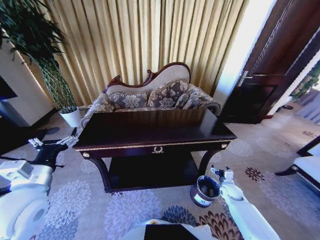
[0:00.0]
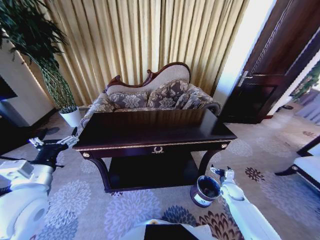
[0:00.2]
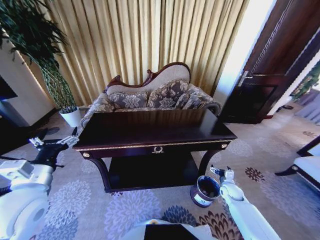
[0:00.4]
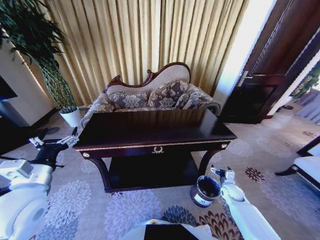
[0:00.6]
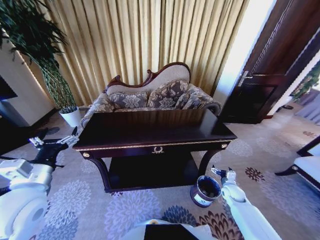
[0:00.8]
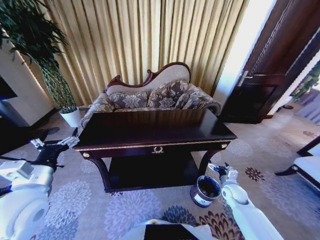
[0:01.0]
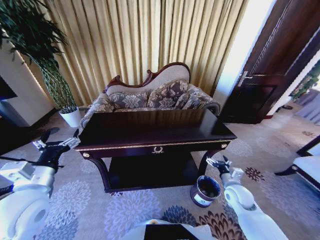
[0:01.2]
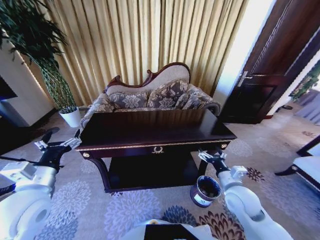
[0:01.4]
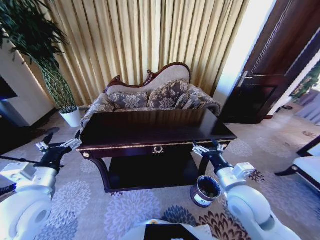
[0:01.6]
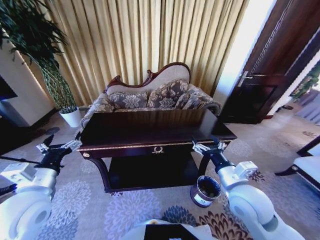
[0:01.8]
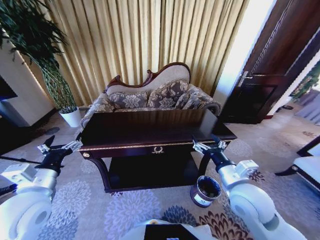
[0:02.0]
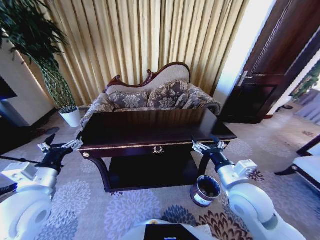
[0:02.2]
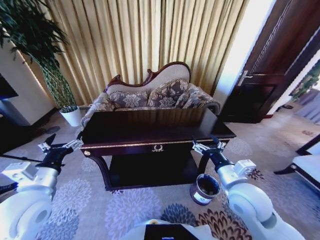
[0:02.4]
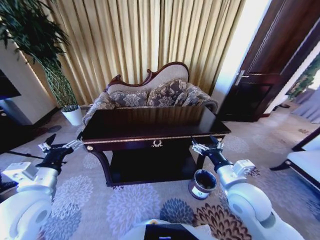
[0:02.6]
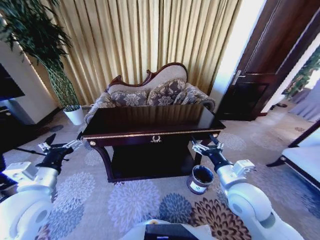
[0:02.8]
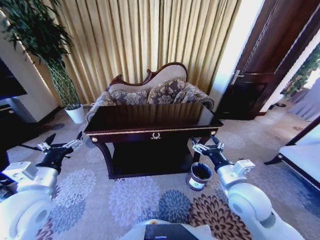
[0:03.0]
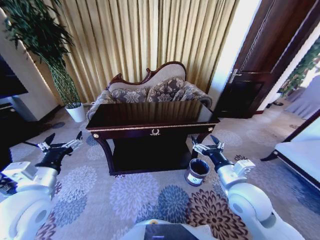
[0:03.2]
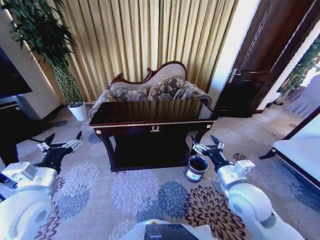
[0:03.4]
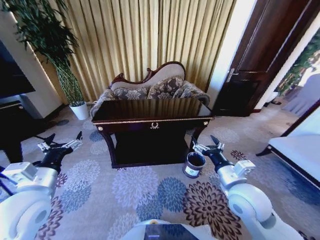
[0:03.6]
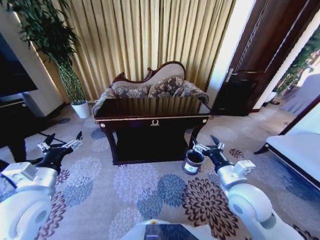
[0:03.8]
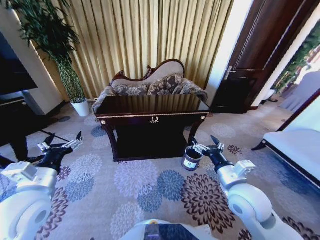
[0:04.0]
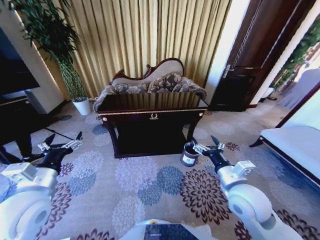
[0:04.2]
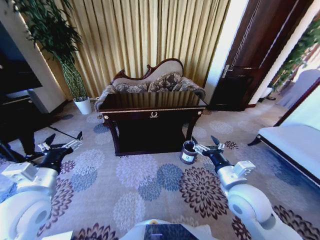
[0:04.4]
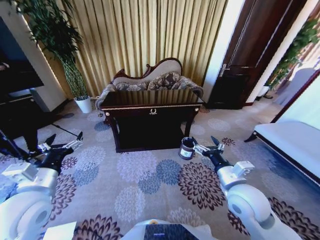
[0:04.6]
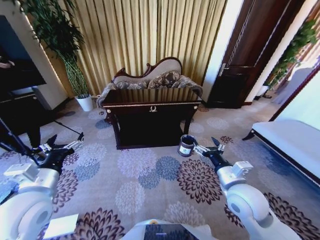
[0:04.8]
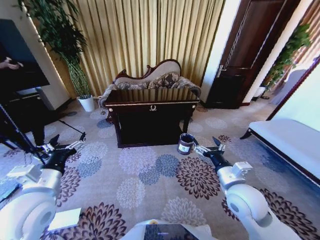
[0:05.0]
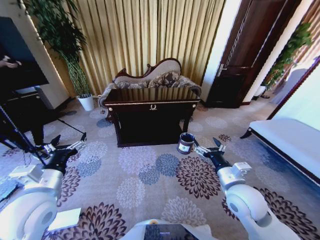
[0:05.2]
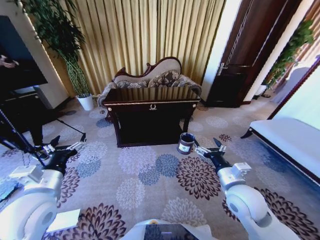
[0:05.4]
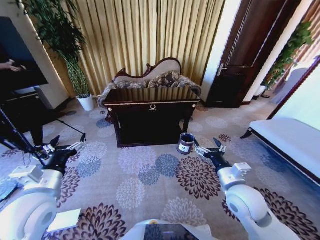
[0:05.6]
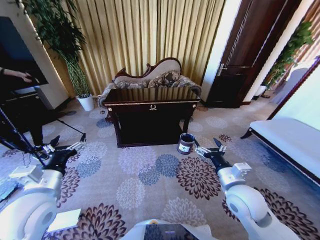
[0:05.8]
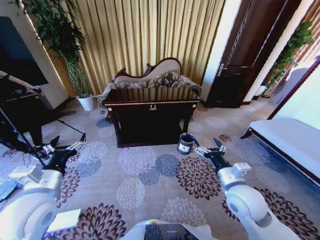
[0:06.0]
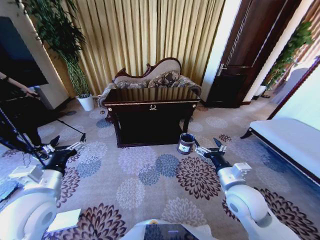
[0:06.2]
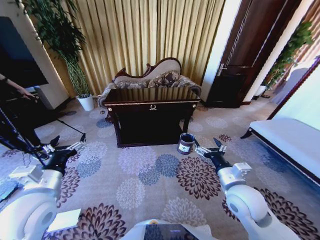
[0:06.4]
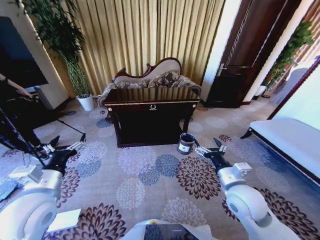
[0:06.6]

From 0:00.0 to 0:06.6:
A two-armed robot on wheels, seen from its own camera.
Task of the whole recording: Move to the front of the table and place the trash on the table into the trash bin.
From 0:00.0 to 0:01.6: The right gripper moves upward and to the left, some 30 cm.
From 0:05.0 to 0:06.6: Neither gripper changes place.

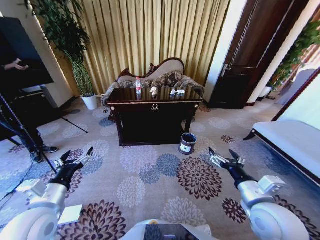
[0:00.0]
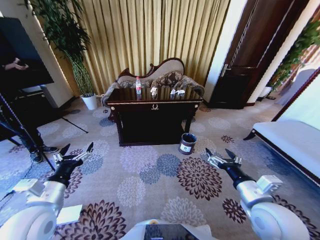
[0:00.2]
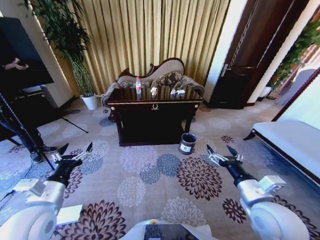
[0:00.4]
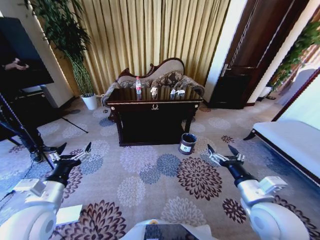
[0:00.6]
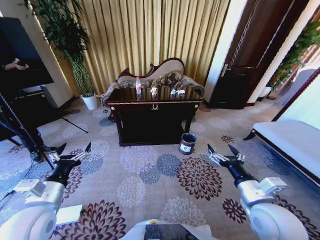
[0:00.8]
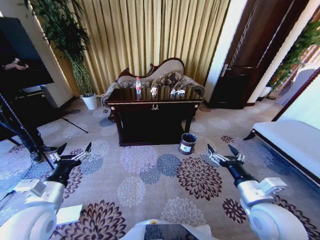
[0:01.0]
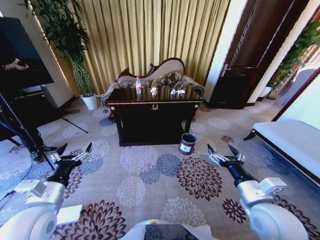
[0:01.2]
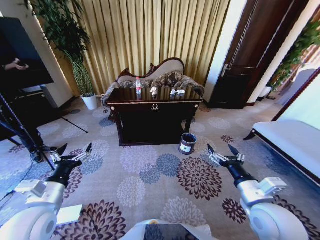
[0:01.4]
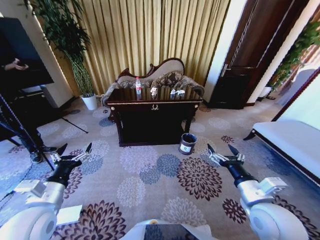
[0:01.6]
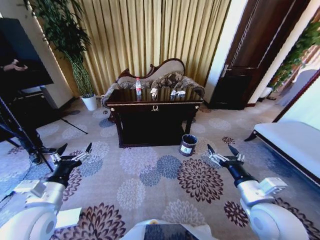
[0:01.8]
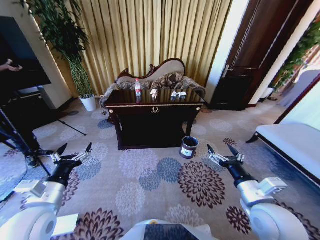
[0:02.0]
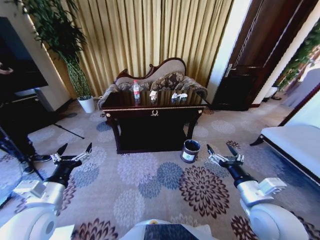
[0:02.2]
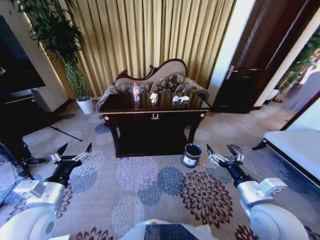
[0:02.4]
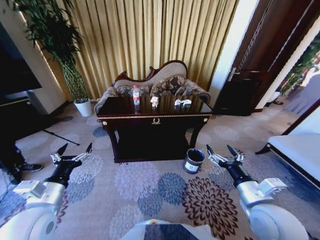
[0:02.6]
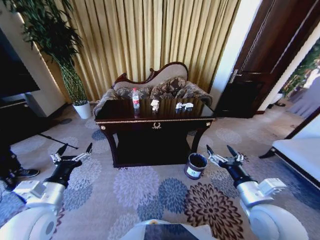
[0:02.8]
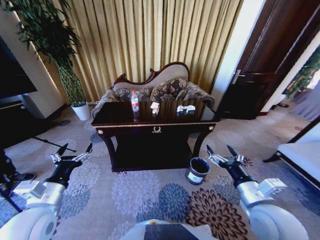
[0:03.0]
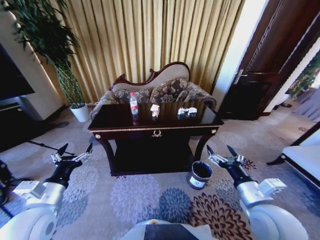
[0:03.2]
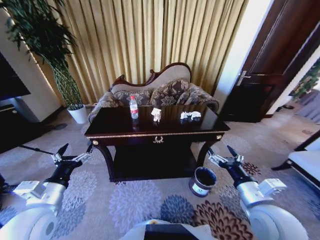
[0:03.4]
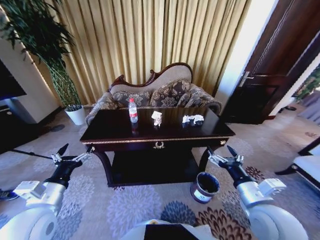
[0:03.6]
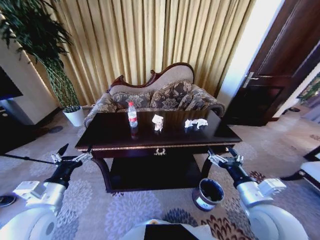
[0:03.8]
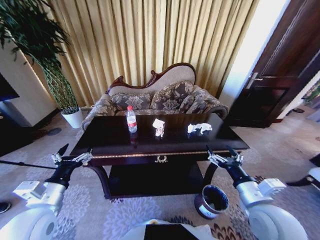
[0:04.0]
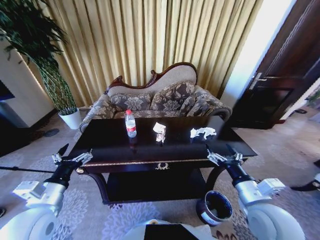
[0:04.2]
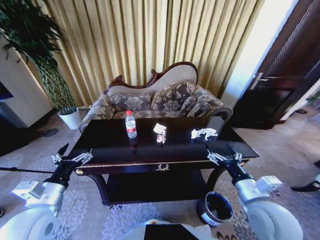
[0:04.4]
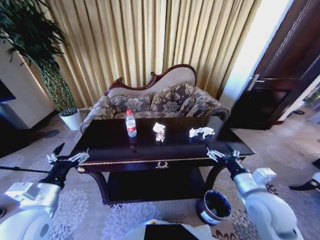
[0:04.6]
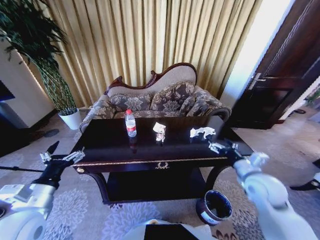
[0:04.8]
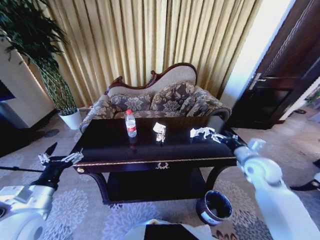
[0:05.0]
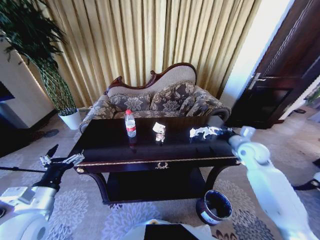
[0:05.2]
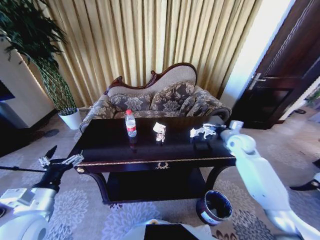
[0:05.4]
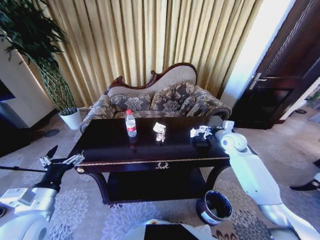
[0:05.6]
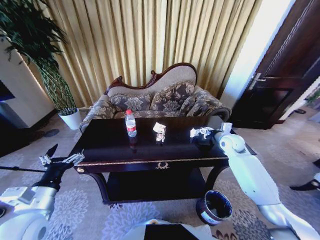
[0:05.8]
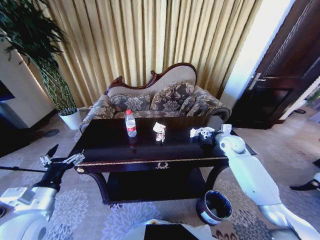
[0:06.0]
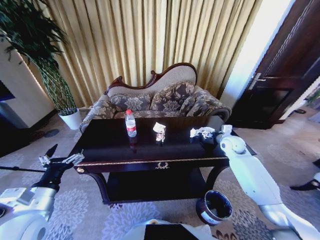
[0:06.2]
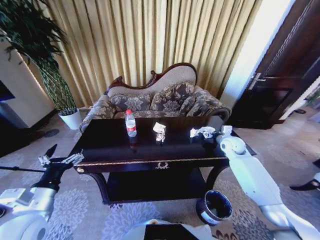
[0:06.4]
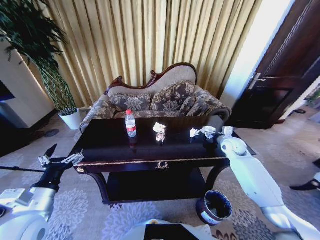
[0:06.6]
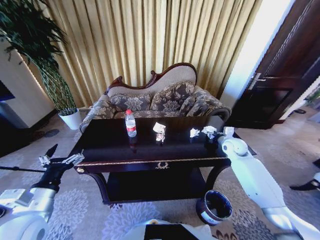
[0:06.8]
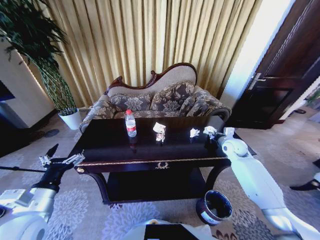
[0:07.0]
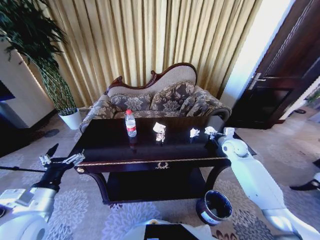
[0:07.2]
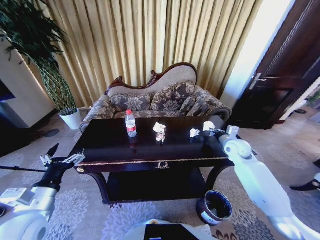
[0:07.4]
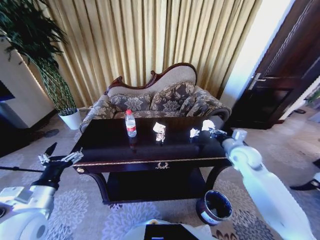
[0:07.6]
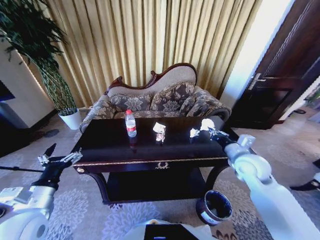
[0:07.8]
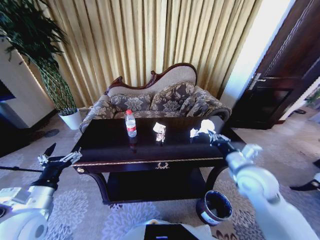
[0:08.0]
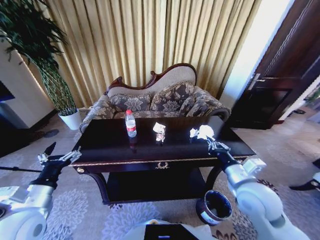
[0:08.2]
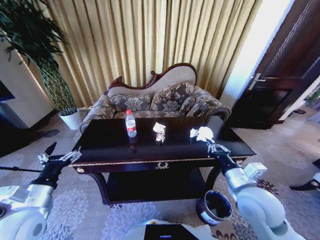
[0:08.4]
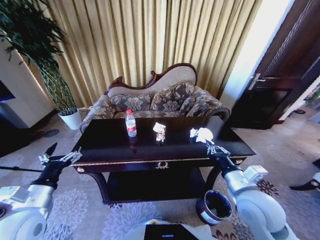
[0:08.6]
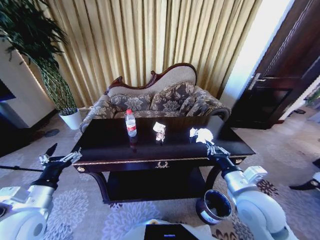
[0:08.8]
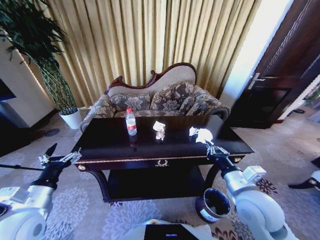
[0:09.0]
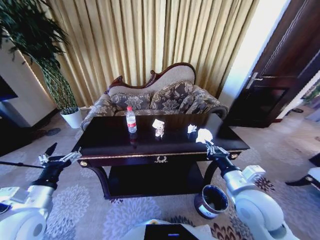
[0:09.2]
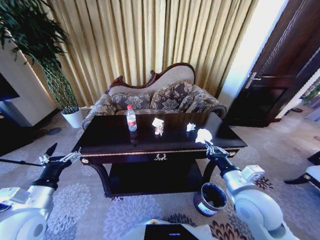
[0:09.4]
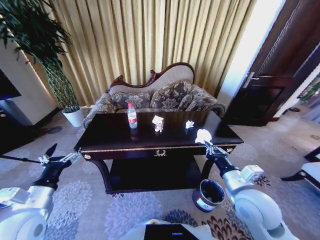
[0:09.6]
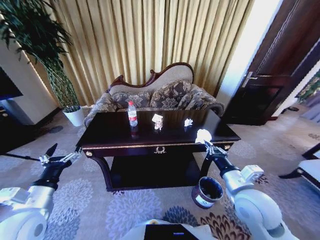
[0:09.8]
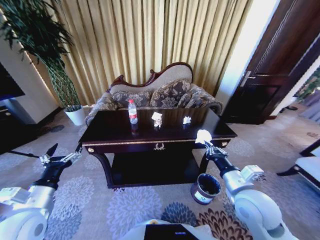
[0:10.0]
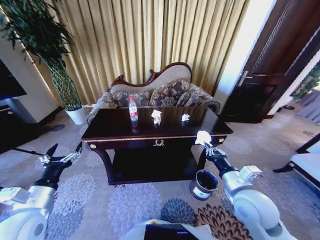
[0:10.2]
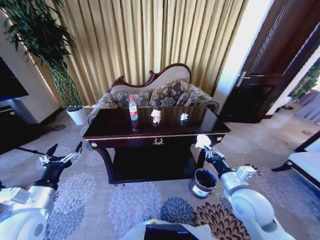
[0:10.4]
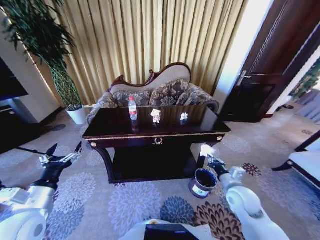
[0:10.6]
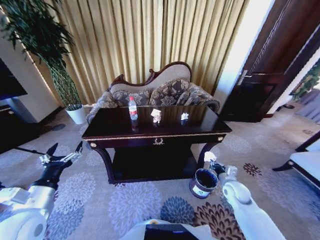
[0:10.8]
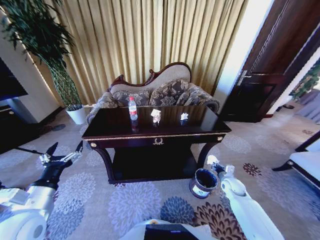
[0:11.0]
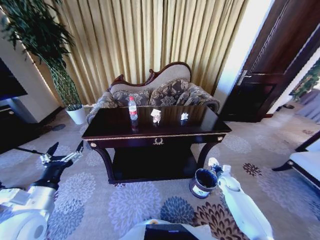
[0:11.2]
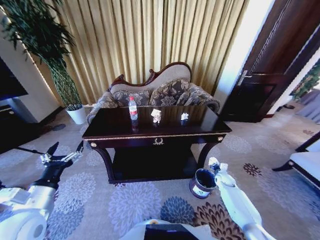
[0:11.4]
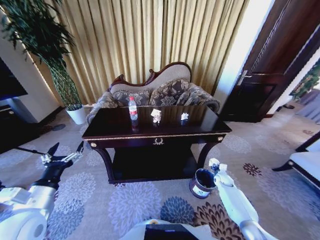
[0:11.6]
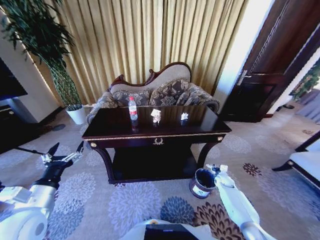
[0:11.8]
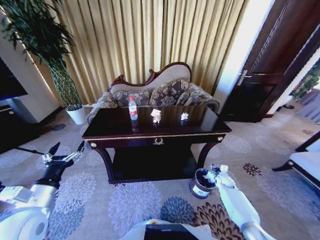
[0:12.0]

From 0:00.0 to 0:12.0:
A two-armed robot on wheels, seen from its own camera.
Task of the whole recording: Move to the front of the table and place the trash on the table into the trash bin.
From 0:04.4 to 0:06.0: The right gripper moves forward, approximately 30 cm.
From 0:06.0 to 0:07.6: The right gripper moves backward, about 10 cm, and closes up.
From 0:07.6 to 0:09.0: The right gripper heads backward and to the left, covering approximately 20 cm.
From 0:10.4 to 0:12.0: The right gripper is displaced downward, forward and to the right by roughly 35 cm, and opens.

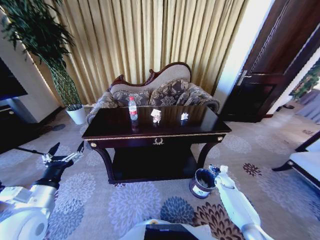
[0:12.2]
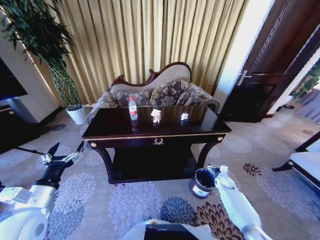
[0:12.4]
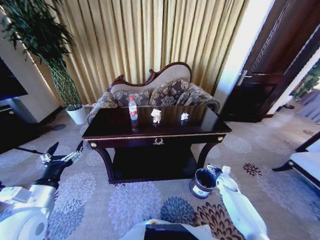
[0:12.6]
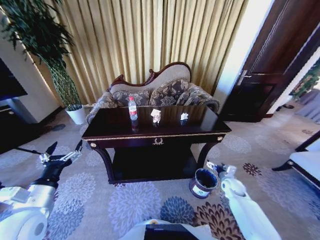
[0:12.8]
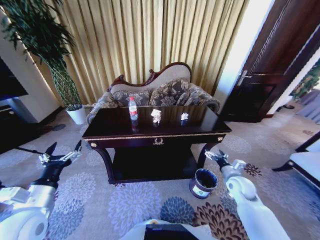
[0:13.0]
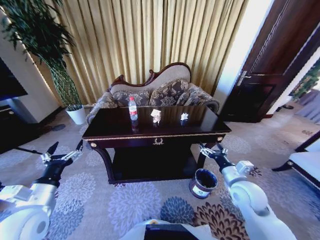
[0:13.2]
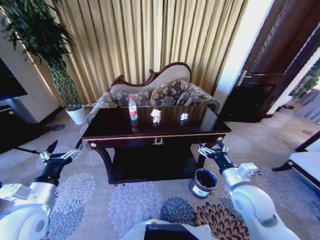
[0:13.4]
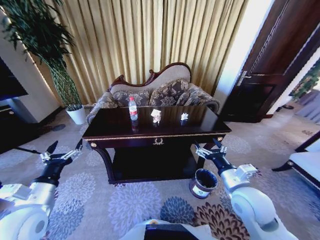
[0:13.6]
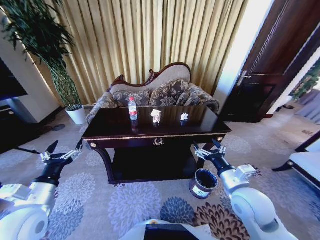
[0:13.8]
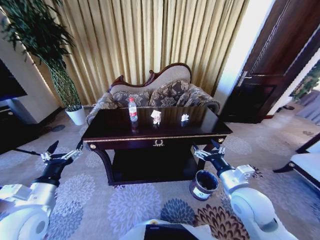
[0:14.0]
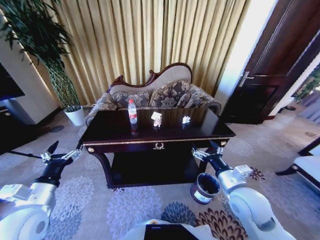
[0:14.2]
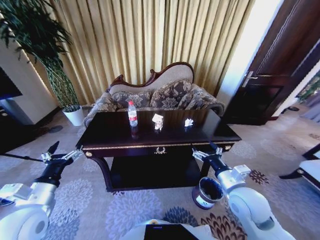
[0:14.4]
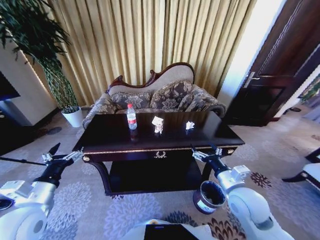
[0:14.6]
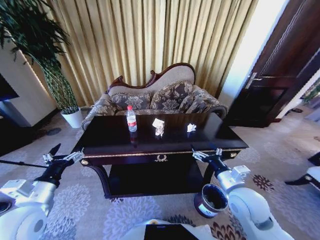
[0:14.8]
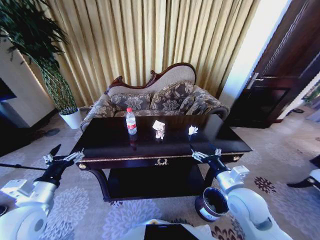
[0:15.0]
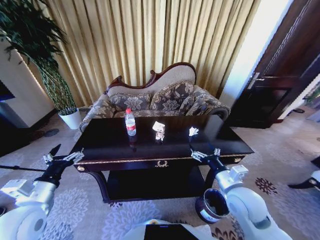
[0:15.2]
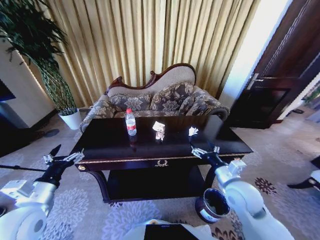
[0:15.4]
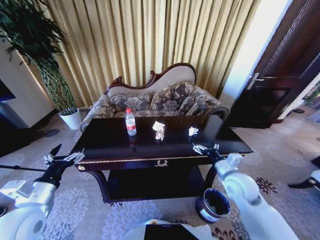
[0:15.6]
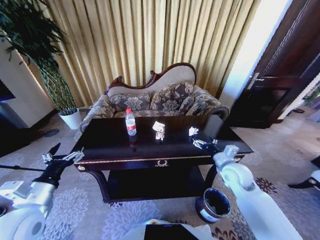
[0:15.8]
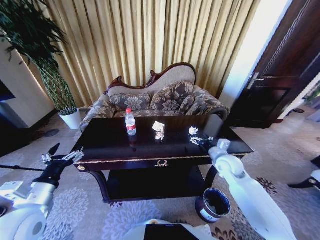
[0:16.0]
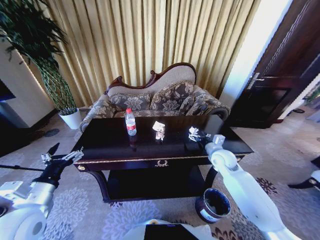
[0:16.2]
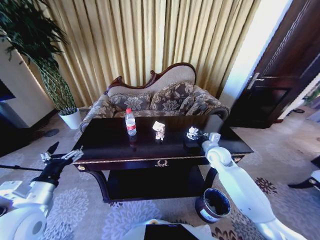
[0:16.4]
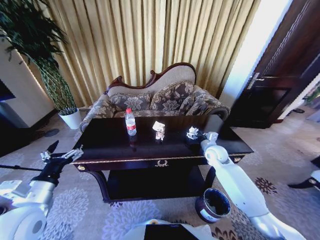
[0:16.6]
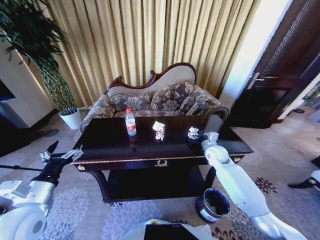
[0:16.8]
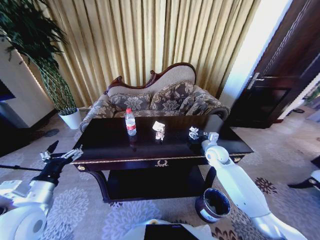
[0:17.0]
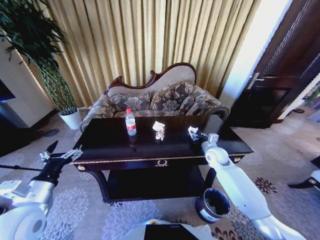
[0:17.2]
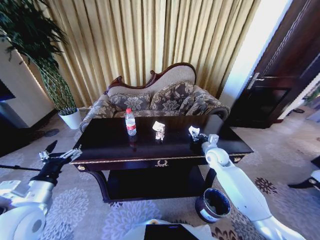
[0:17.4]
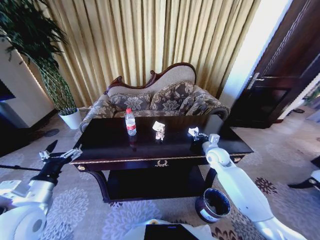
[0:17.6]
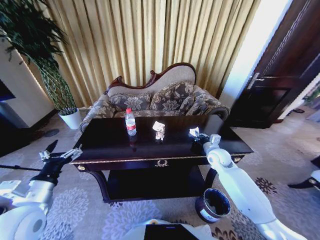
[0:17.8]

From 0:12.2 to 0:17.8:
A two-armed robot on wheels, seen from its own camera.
Task of the whole recording: Move to the front of the table and place the trash on the table into the trash bin.
From 0:12.2 to 0:13.6: The right gripper heads upward, backward and to the left, covering some 35 cm.
From 0:15.0 to 0:16.4: The right gripper moves forward, approximately 20 cm.
From 0:16.4 to 0:17.8: The right gripper closes.
